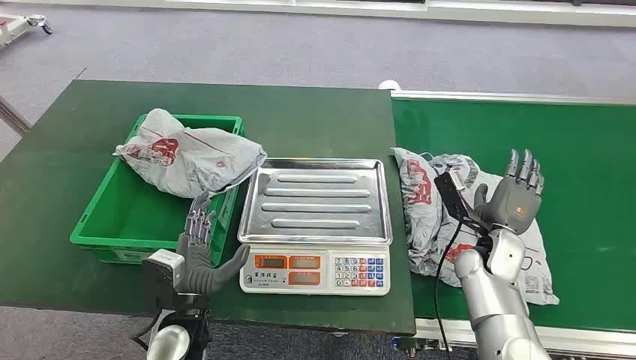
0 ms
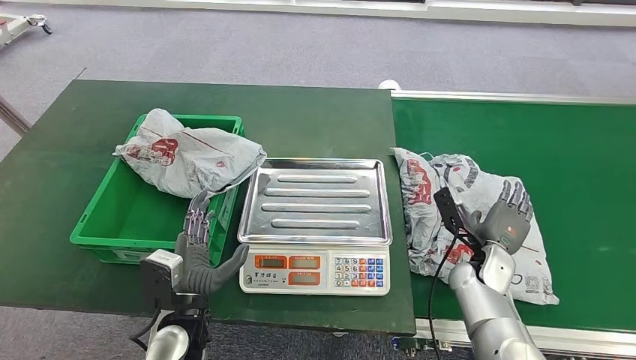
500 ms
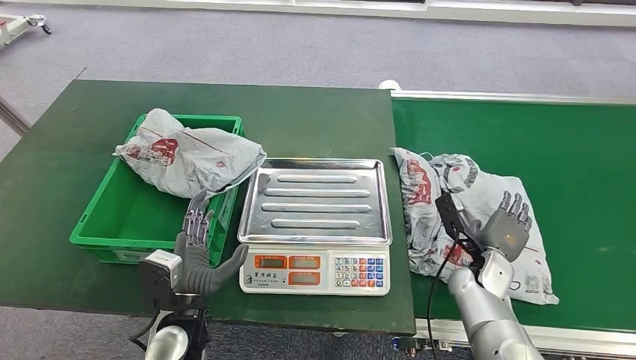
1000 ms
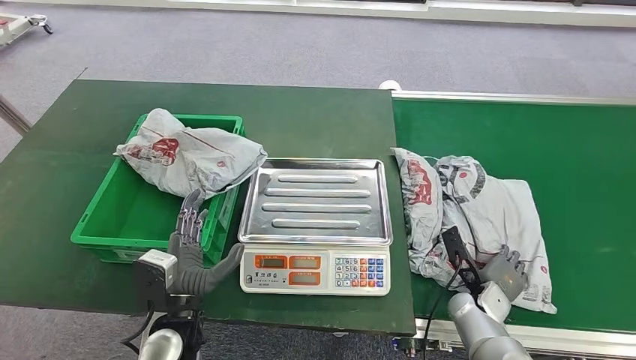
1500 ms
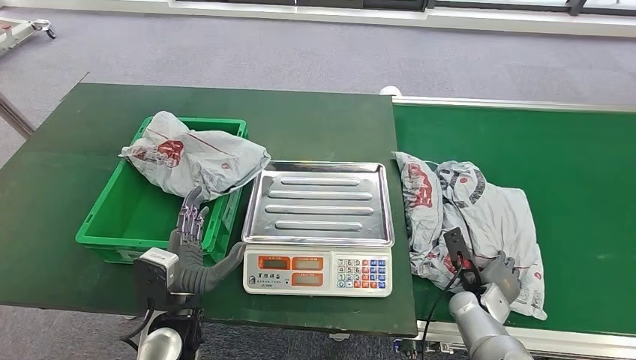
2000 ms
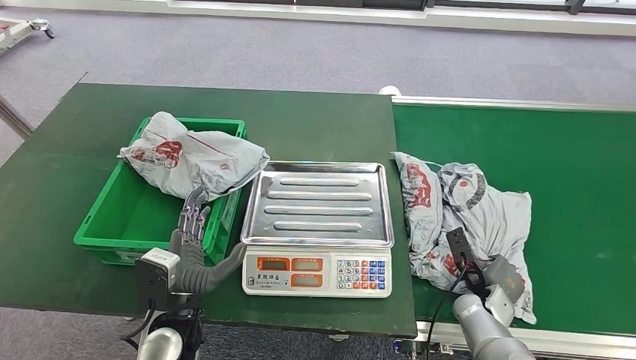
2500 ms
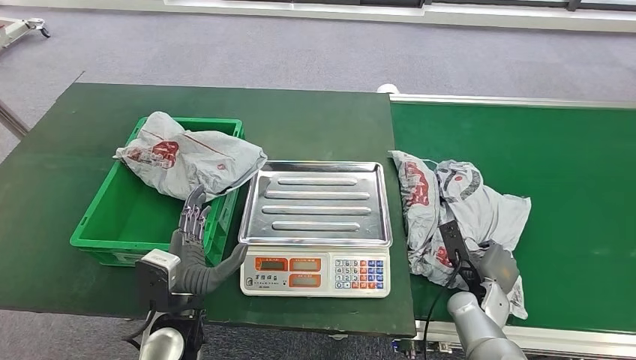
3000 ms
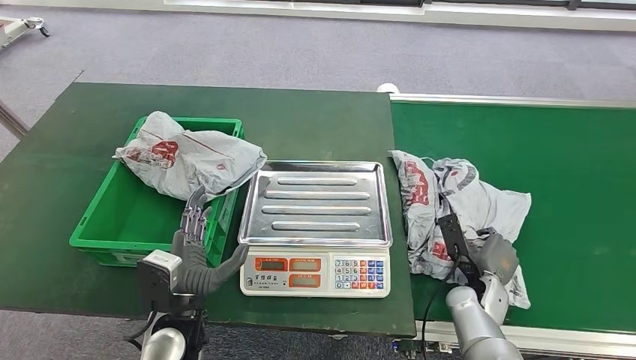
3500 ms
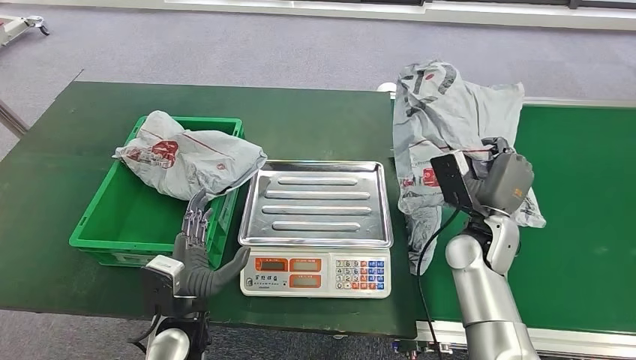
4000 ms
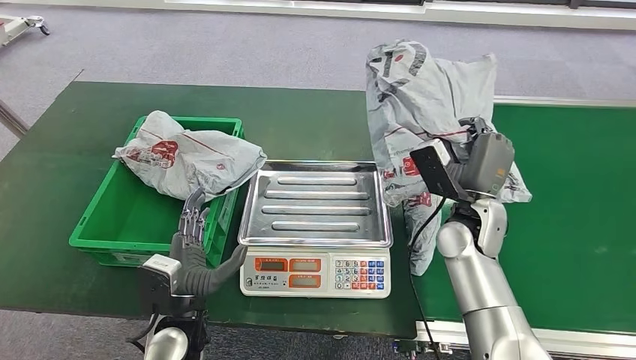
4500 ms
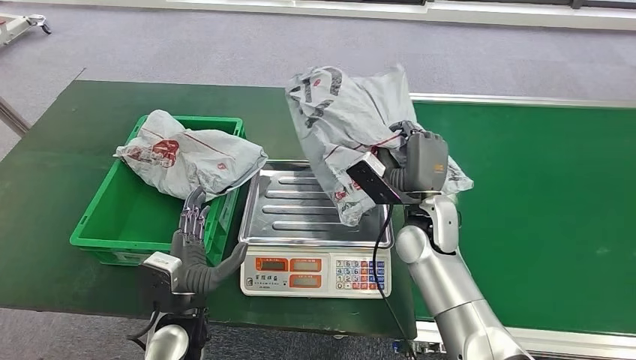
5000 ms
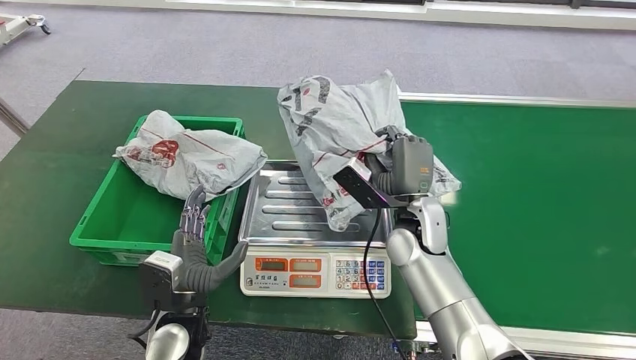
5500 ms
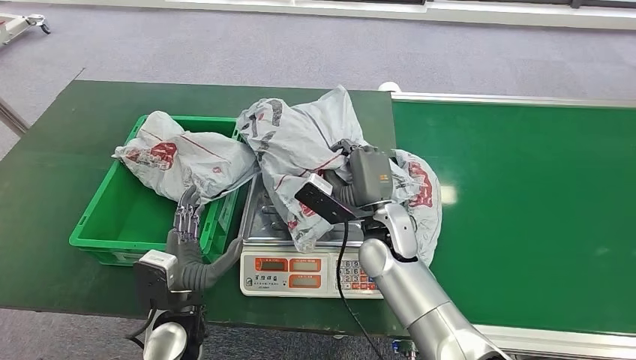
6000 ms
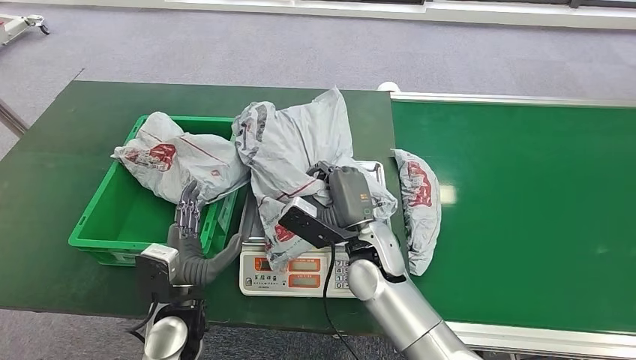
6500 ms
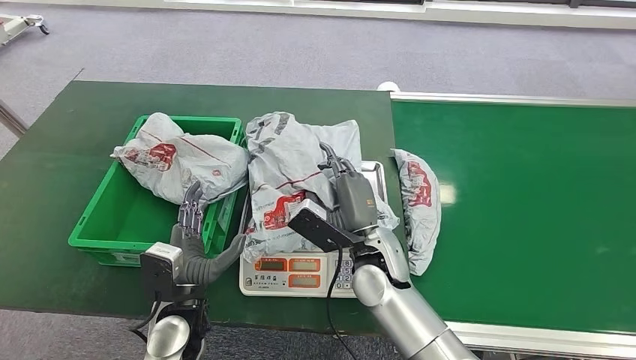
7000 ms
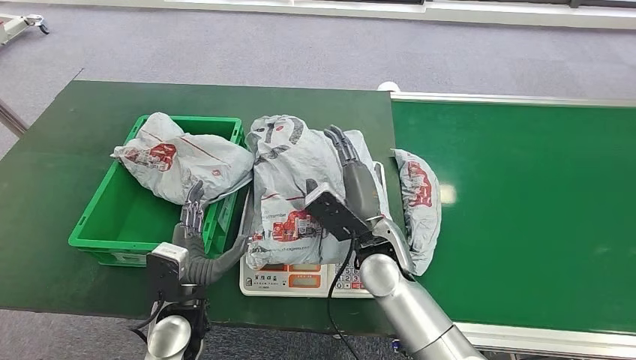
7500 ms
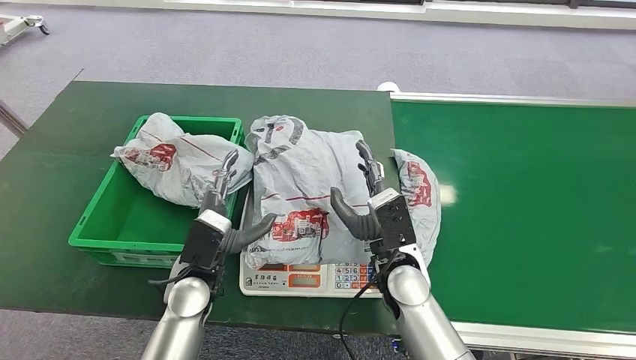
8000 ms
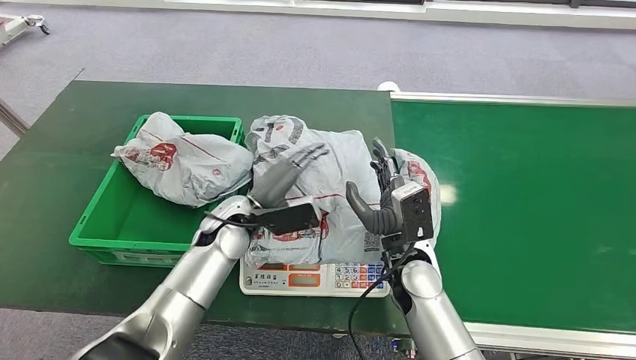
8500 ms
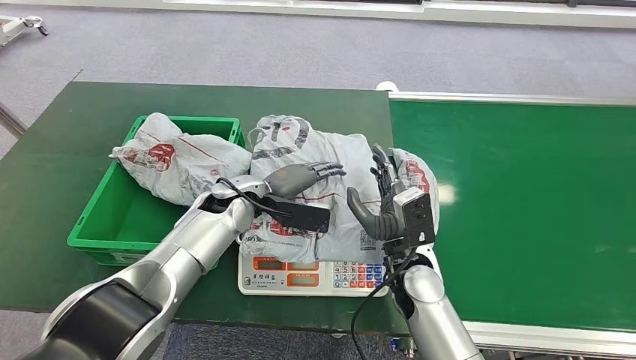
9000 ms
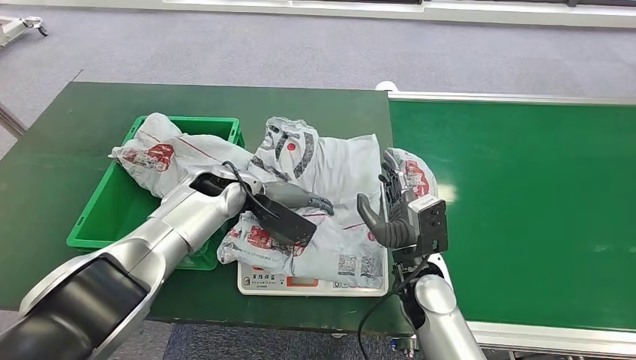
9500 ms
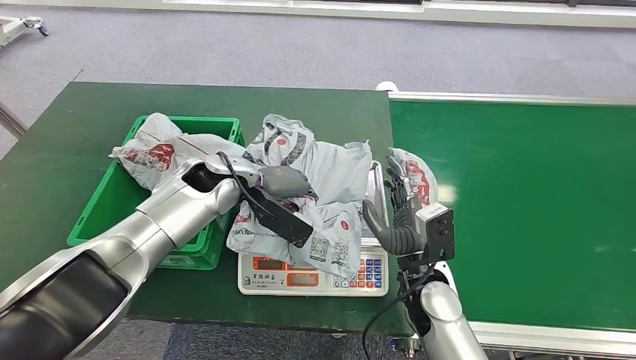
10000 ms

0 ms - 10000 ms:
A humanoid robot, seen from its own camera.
Step, 0 ms - 4000 ms: Pick up the package from the conveyor belt.
Step, 4500 ms - 7000 ms: Place the package onto the inbound machine.
6000 ms - 8000 ms: The right hand moves some 5 cm. The left hand is displaced forward by about 5 cm.

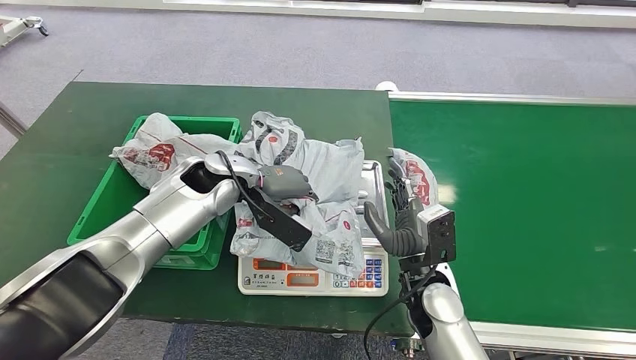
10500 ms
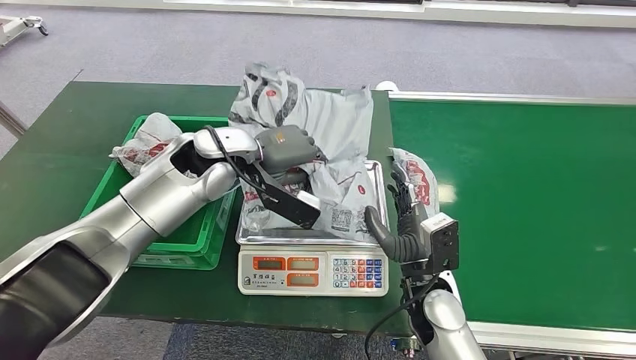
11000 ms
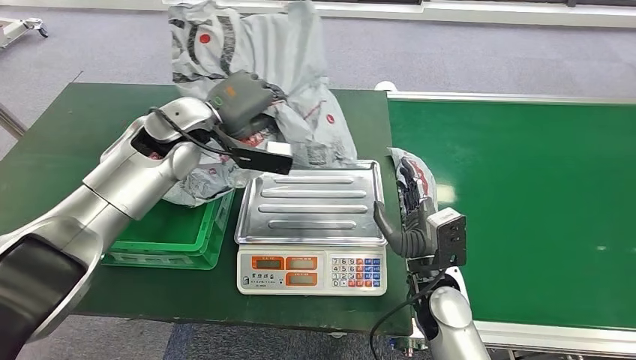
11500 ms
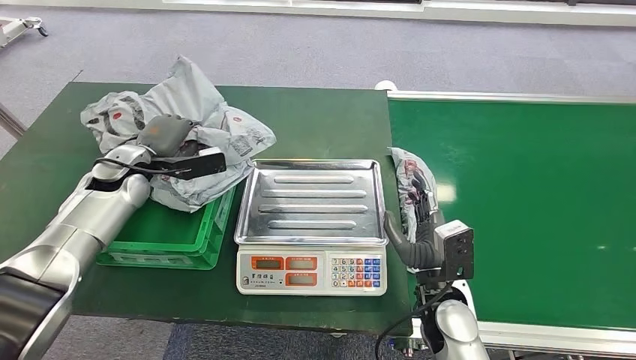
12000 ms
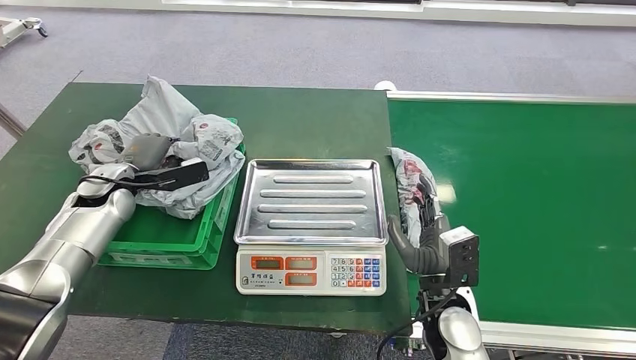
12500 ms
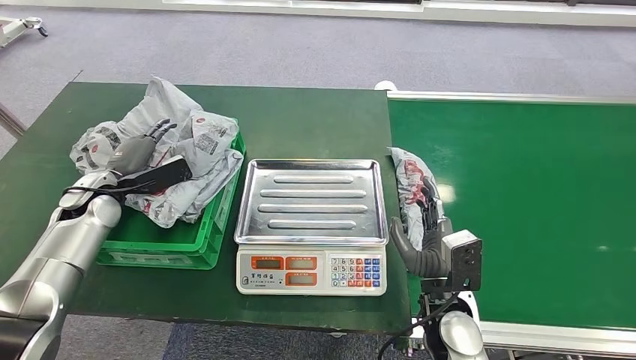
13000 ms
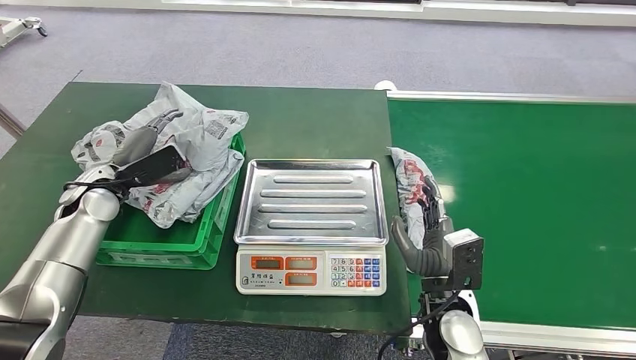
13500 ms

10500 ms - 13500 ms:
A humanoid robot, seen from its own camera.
Step, 11500 ms - 13500 ms: Place the package into the parcel locker.
12000 ms - 13500 ms: The left hand moves about 5 cm.
